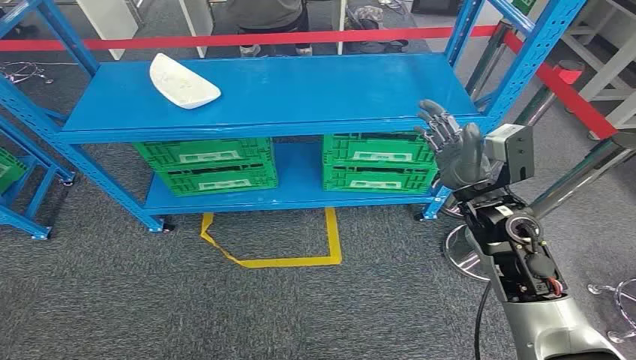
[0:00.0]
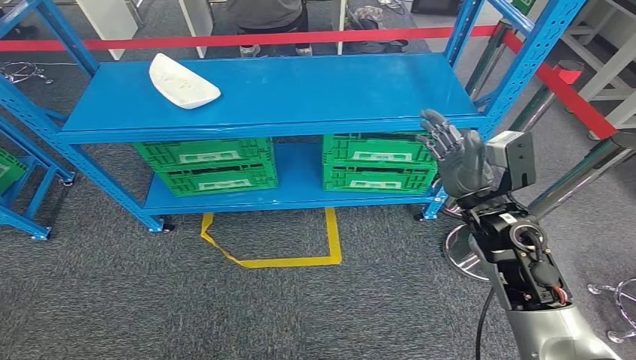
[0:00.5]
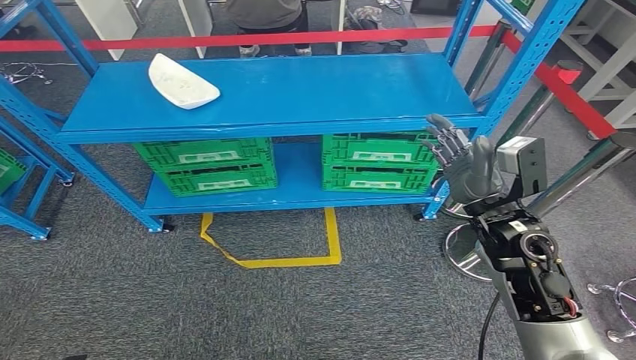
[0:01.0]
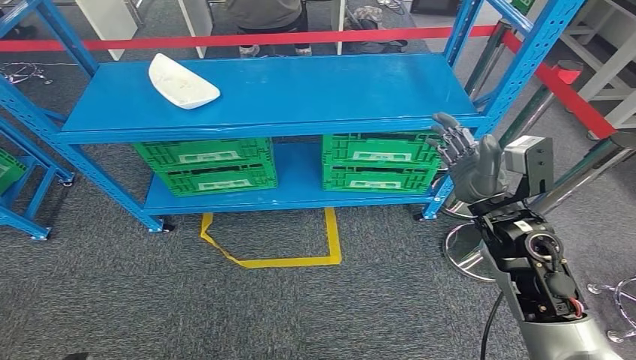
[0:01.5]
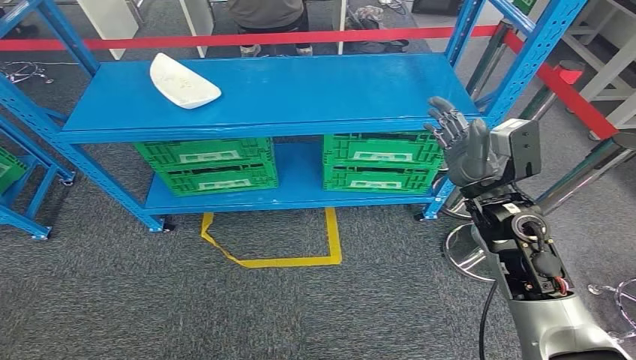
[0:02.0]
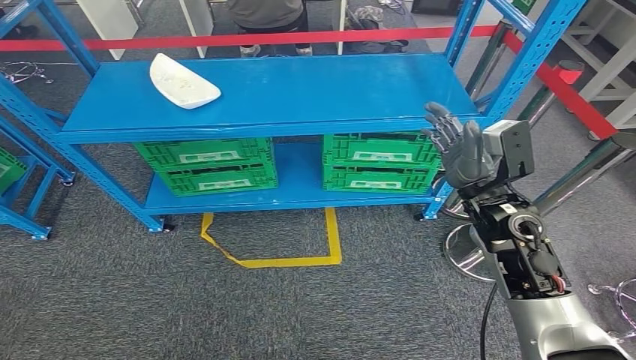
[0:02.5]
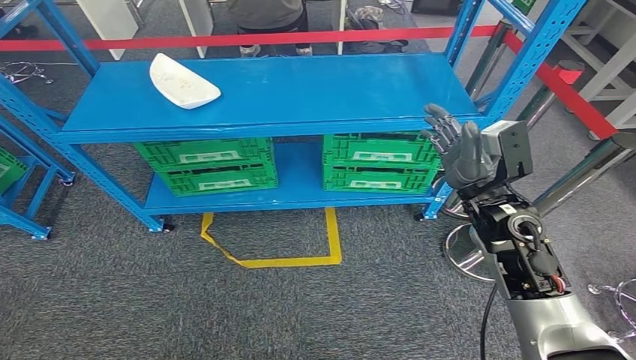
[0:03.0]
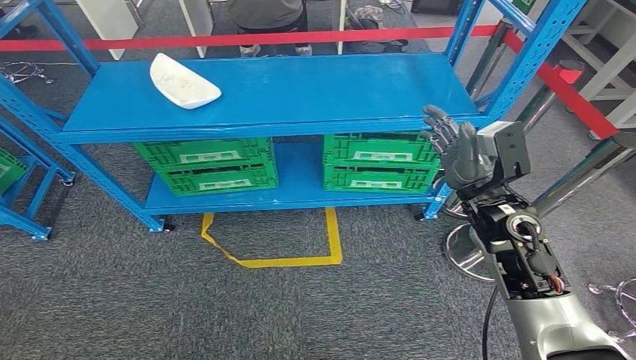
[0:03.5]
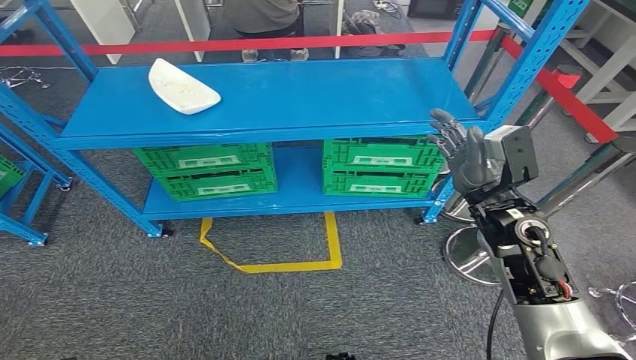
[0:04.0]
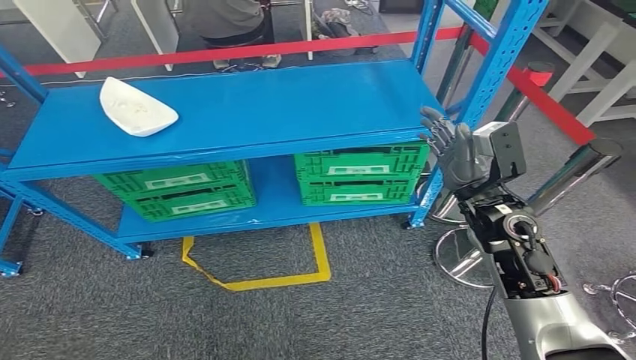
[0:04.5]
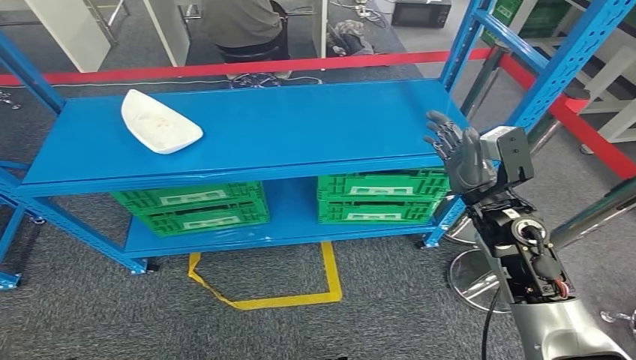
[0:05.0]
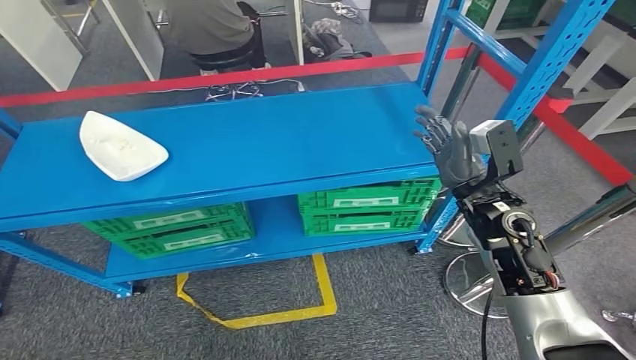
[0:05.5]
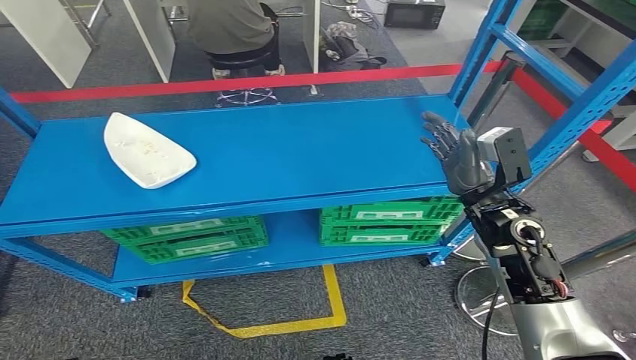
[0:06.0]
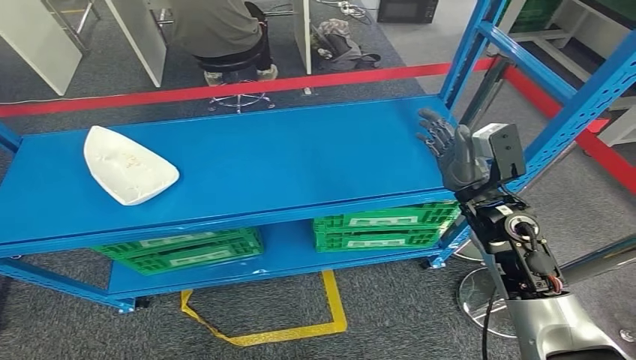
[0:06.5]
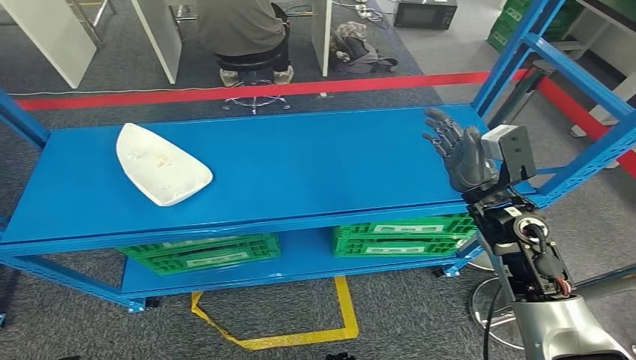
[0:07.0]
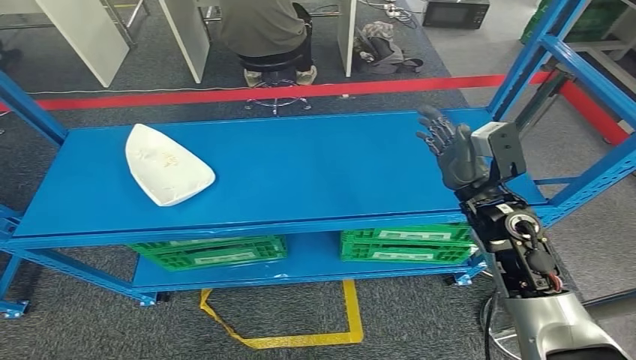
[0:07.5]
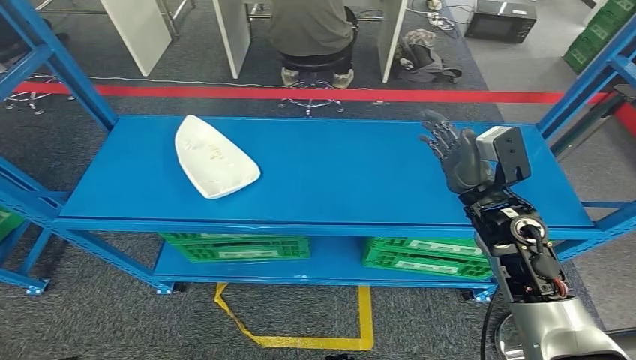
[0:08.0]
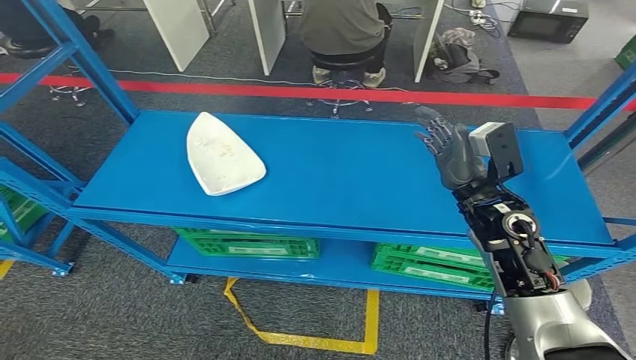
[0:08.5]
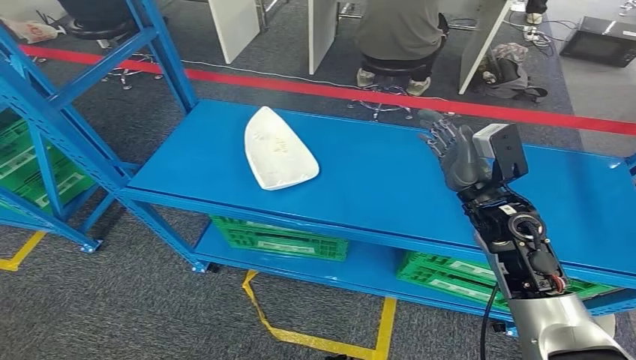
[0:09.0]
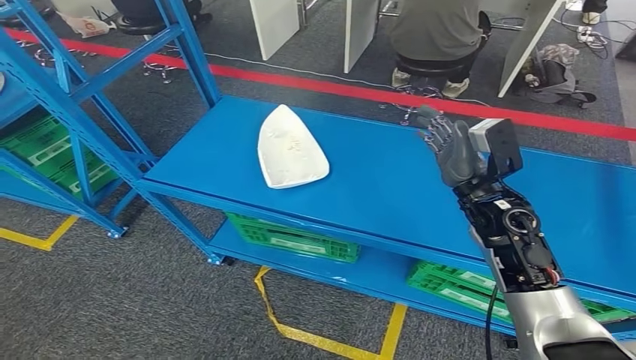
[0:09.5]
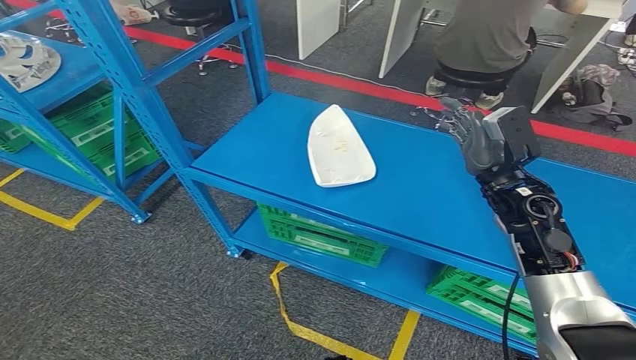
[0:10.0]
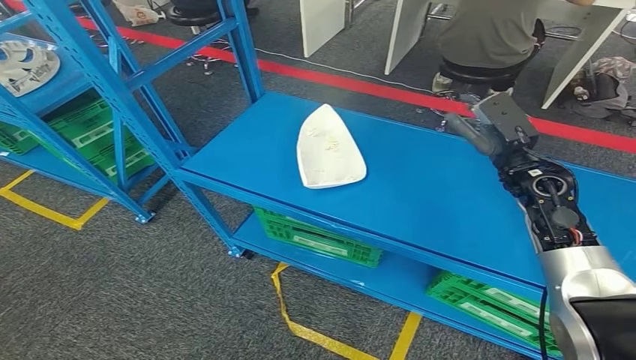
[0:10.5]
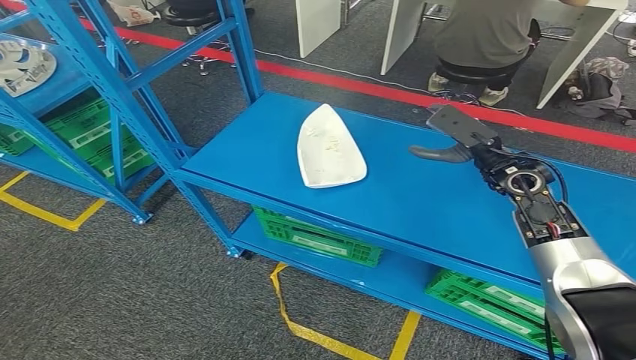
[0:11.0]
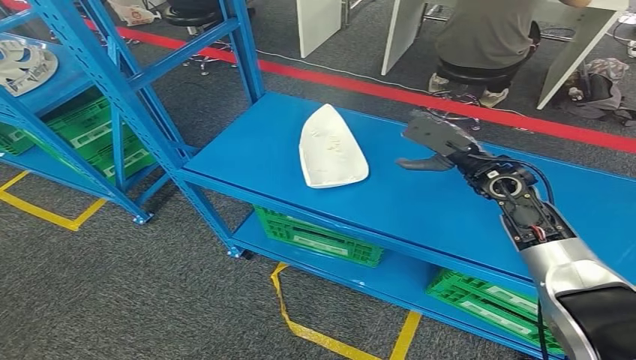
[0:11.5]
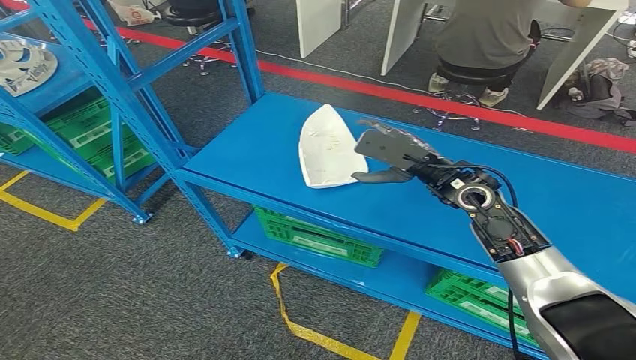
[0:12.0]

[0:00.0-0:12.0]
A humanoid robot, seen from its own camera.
0:02.0 to 0:04.0: The two hands keep their place.
0:10.0 to 0:12.0: The right hand moves to the left, roughly 5 cm.

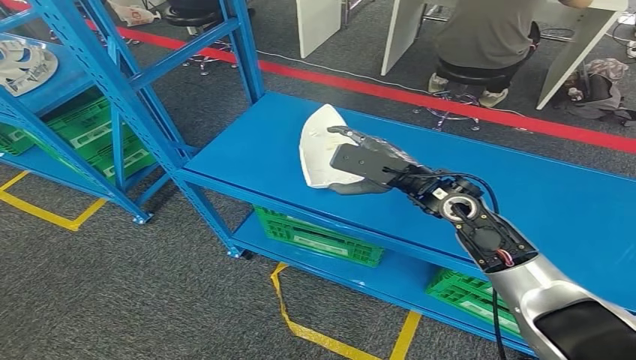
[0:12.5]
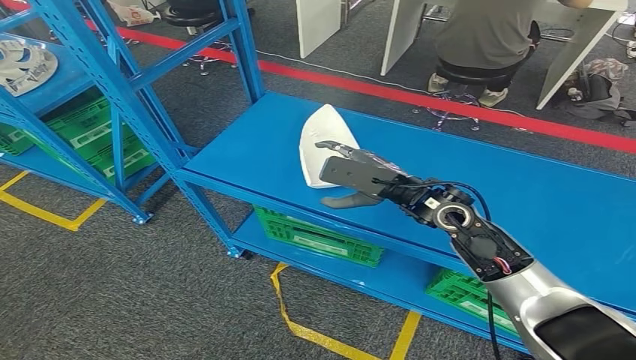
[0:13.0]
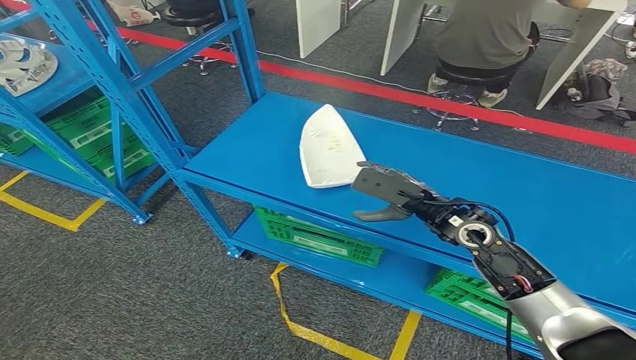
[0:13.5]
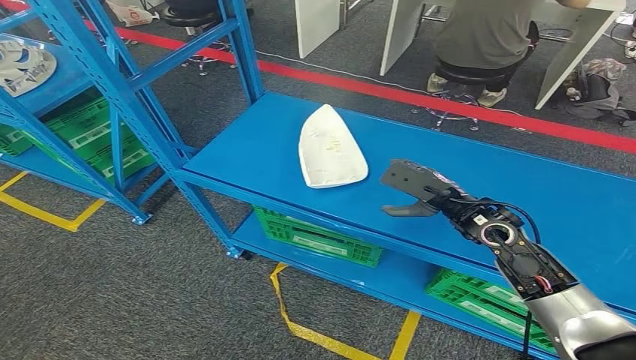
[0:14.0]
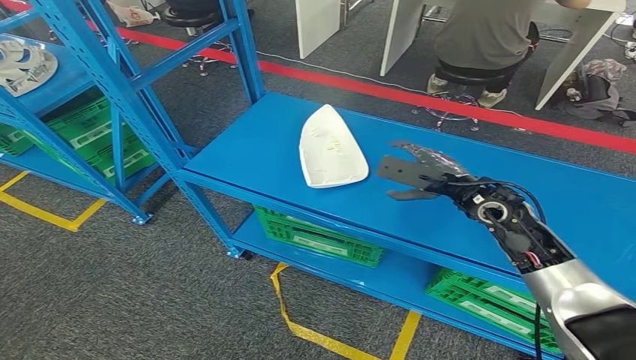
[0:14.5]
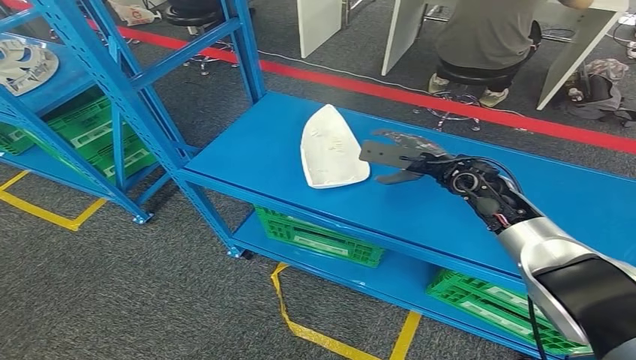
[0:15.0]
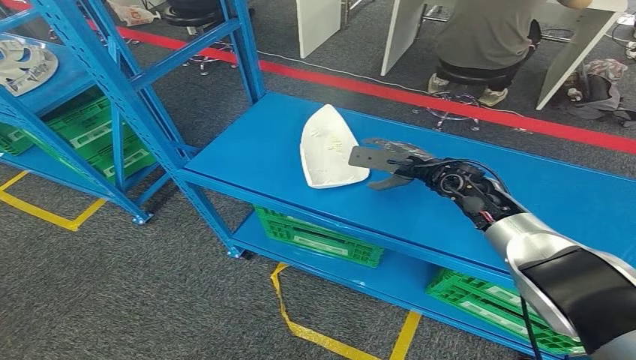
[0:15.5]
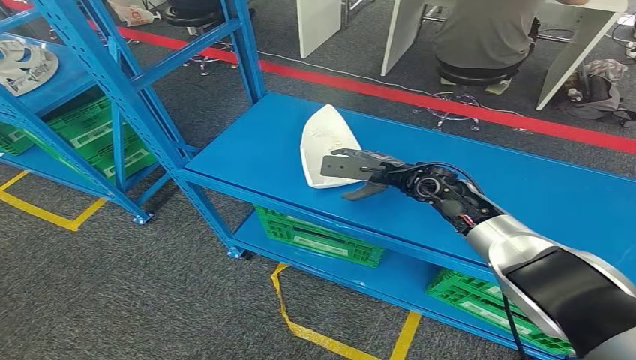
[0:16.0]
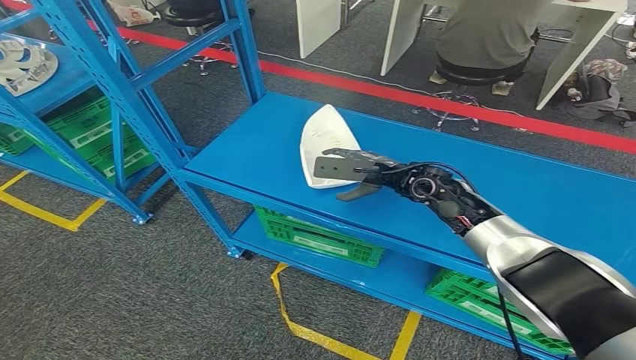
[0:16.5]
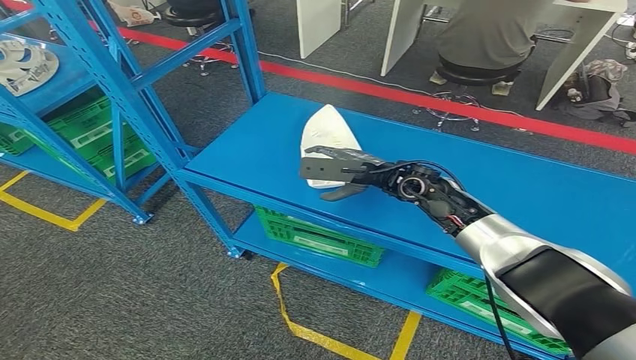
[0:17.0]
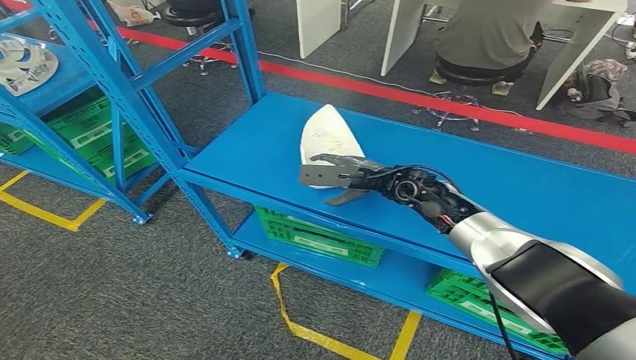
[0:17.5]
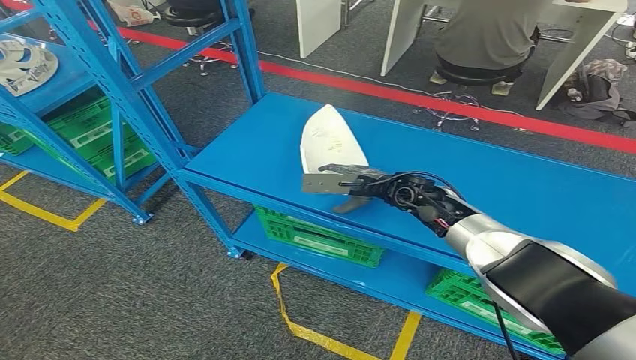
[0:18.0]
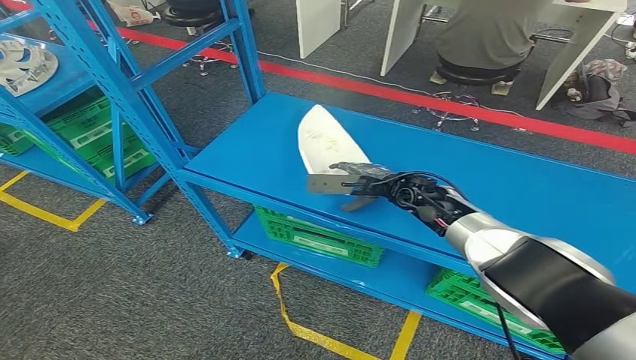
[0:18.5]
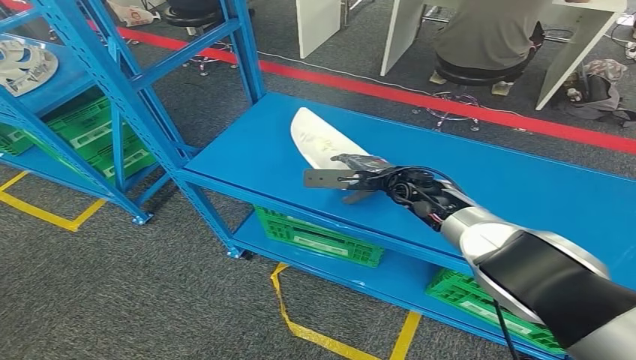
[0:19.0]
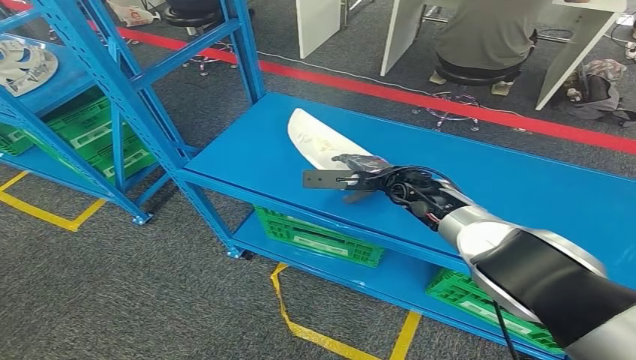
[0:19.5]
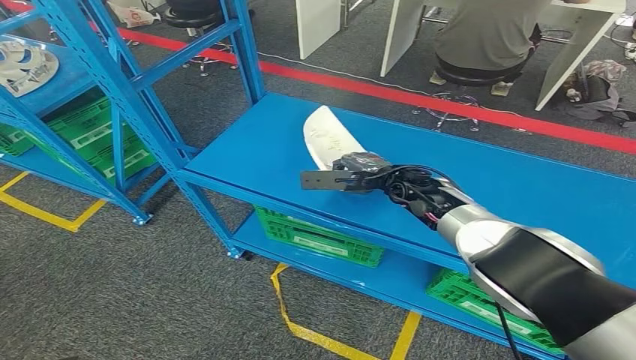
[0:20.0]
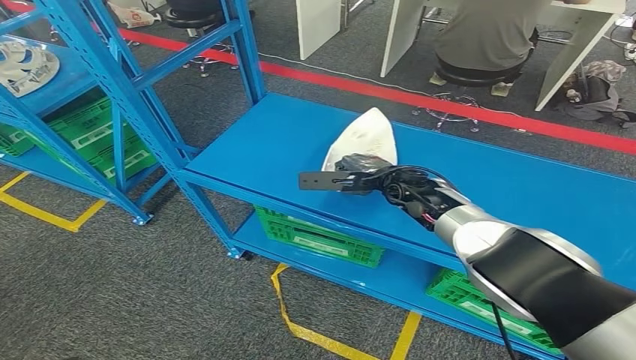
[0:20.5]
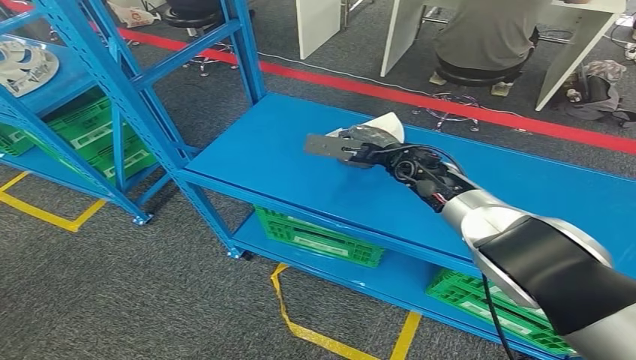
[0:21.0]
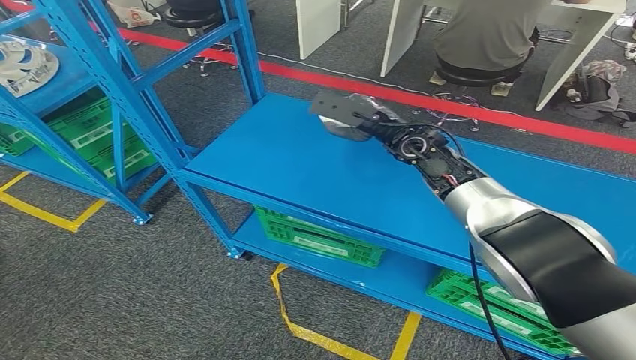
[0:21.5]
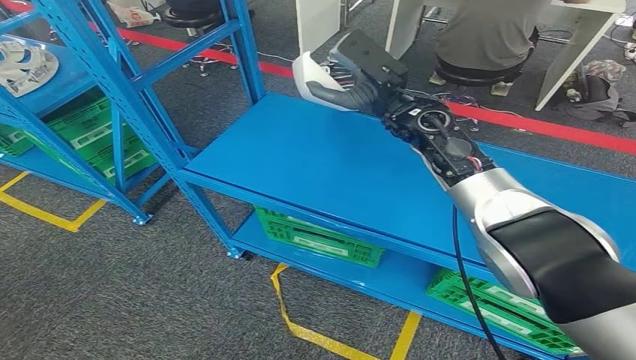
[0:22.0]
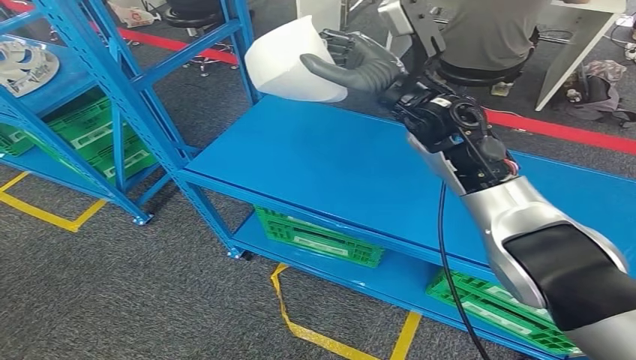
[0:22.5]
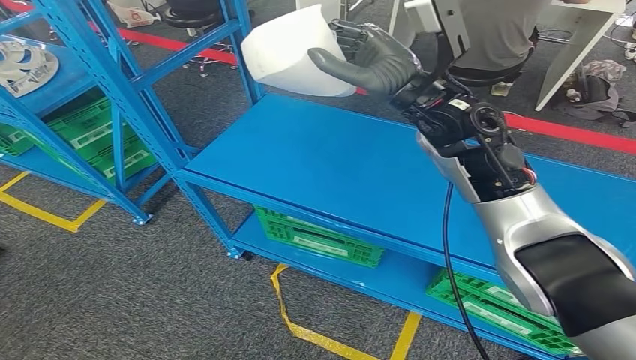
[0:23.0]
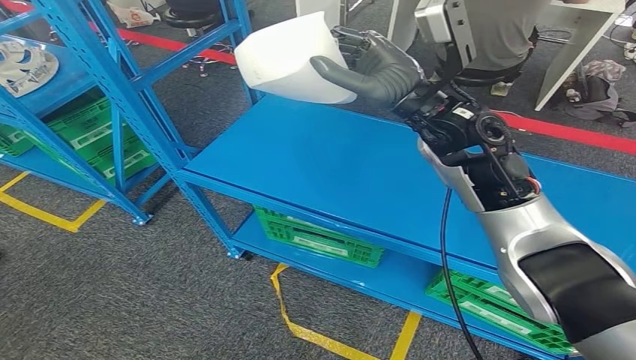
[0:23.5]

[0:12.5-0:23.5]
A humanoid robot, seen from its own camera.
Step, 0:12.5 to 0:22.0: Pick up the small component from the shelf.
0:12.5 to 0:14.5: The right hand goes about 10 cm to the right.
0:14.5 to 0:16.0: The right hand moves forward and to the left, approximately 10 cm.
0:16.0 to 0:20.0: The hands make only small movements.
0:20.0 to 0:21.5: The right hand heads upward, covering some 10 cm.
0:21.5 to 0:23.5: The right hand shifts about 15 cm upward and backward.
